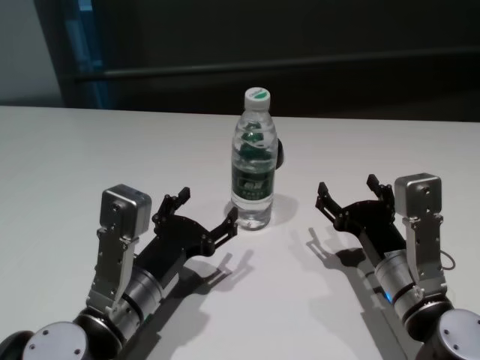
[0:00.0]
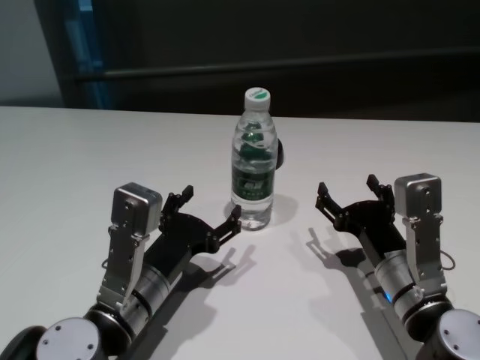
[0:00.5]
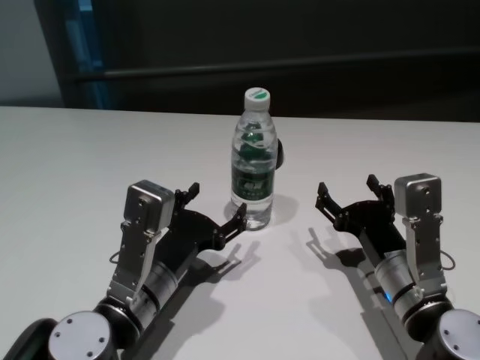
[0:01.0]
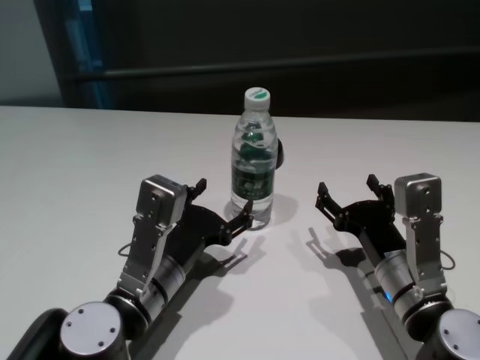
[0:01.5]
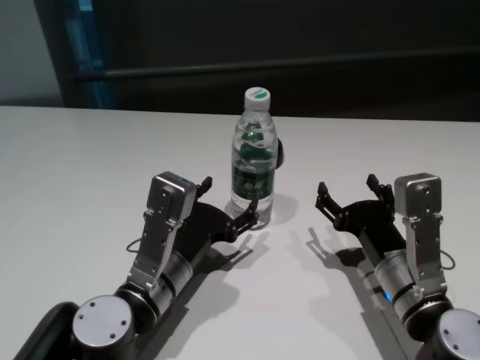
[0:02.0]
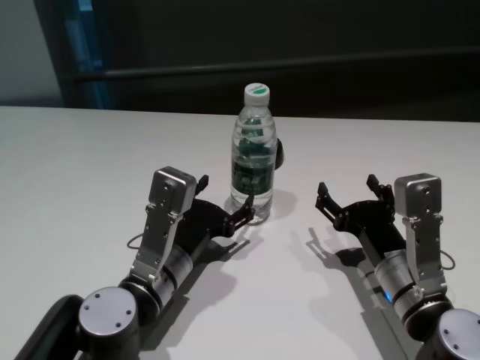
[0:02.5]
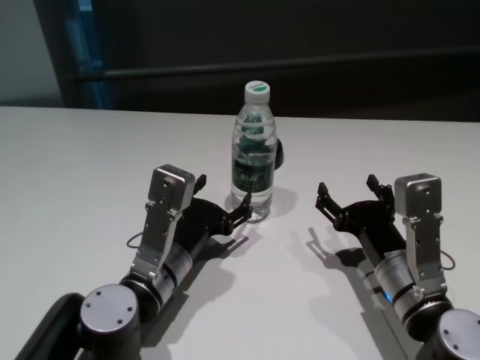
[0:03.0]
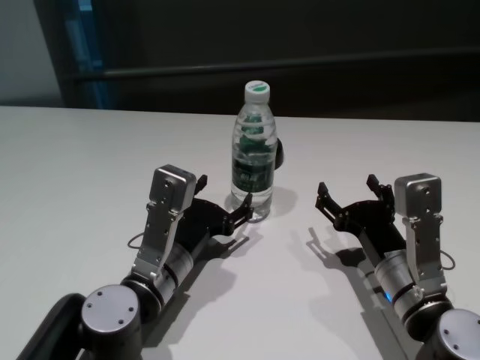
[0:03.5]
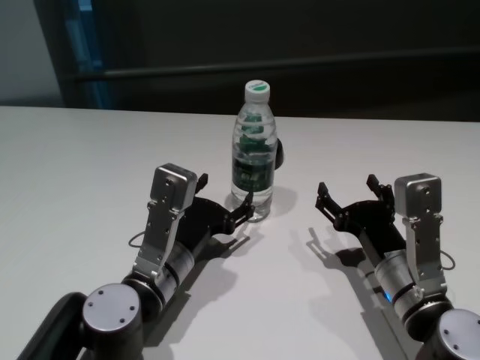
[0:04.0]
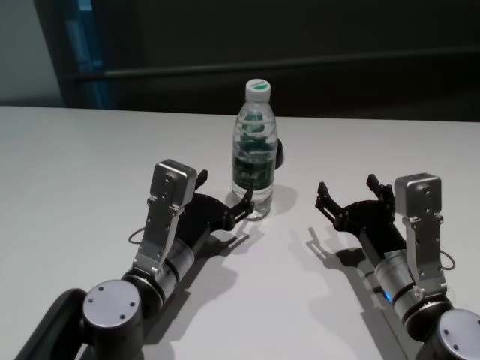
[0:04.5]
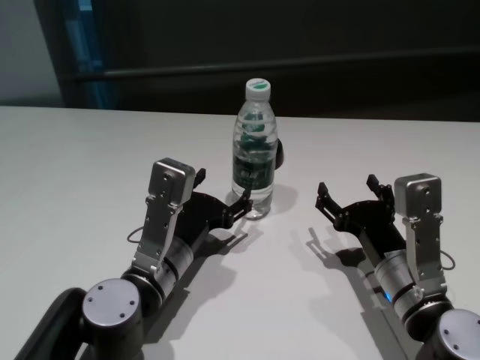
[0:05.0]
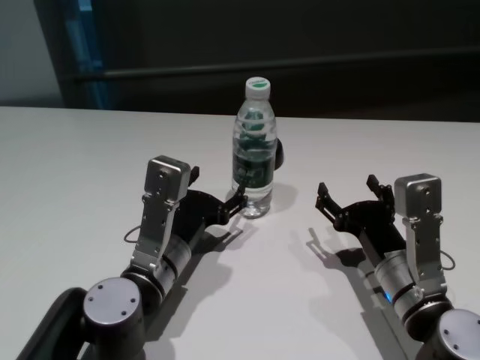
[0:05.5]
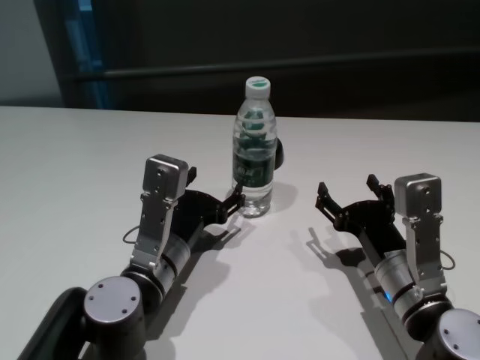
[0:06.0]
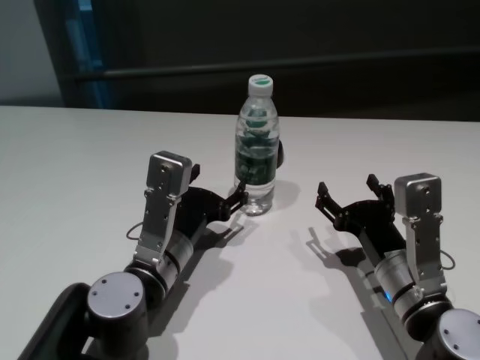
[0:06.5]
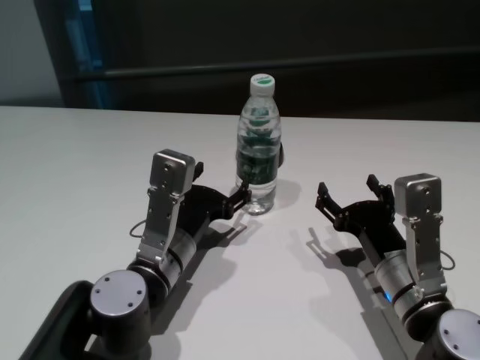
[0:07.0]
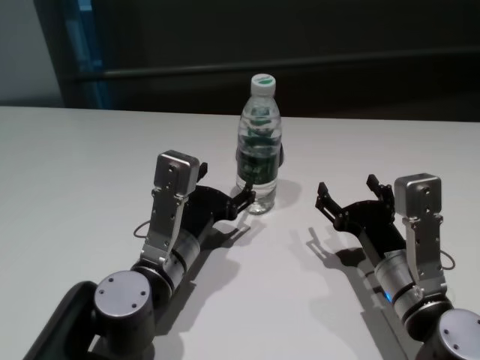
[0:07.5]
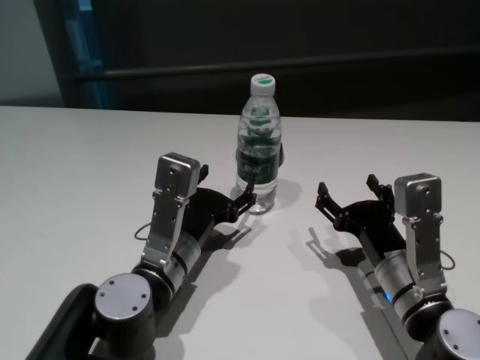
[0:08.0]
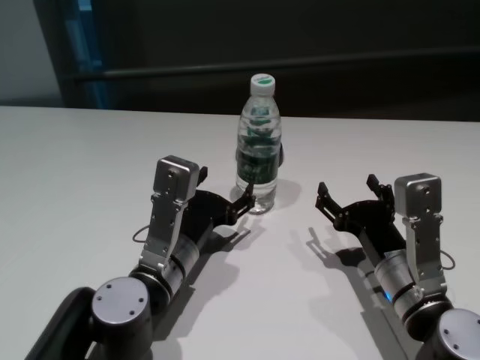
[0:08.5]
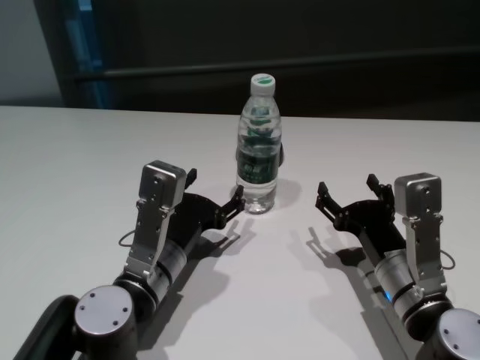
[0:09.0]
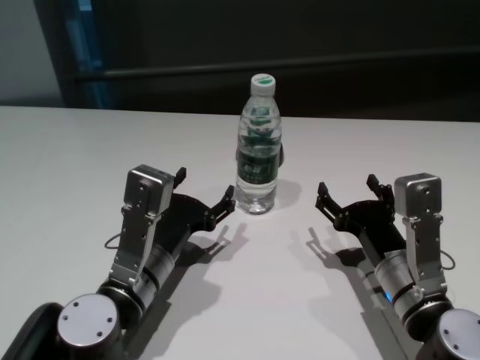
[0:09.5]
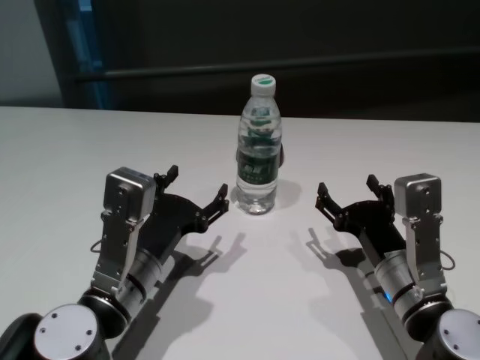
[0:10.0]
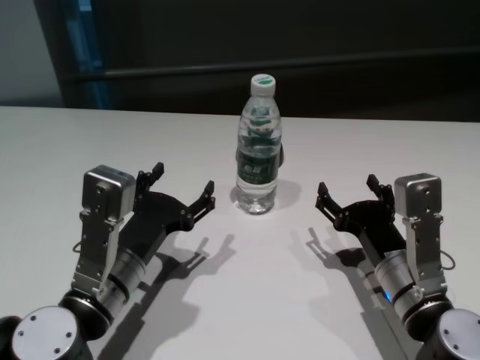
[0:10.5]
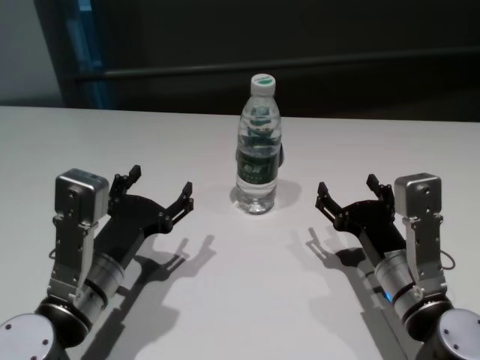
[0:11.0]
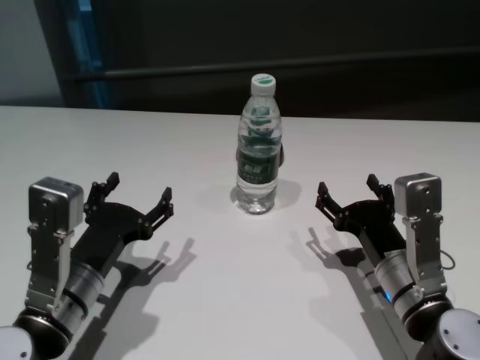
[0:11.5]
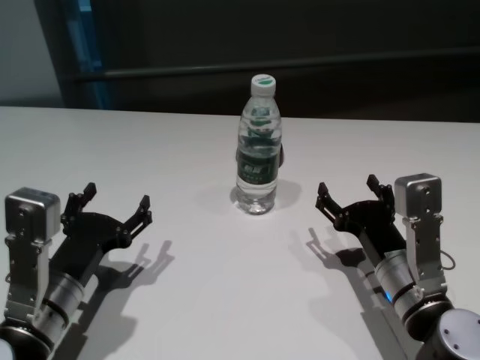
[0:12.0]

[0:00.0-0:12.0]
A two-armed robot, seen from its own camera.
Task of the whole recording: return to a safe position after touching an obstacle with your arm on the white table.
Step, 0:00.0 to 0:09.0: Touch the bottle with left gripper.

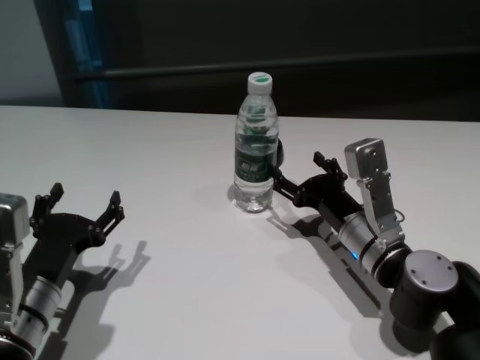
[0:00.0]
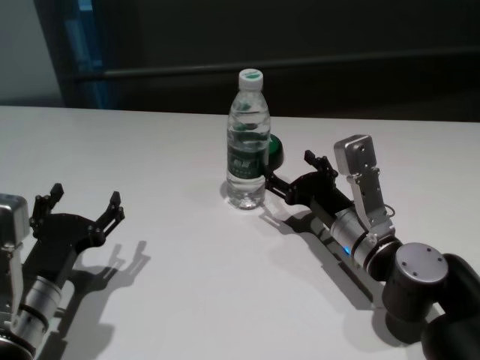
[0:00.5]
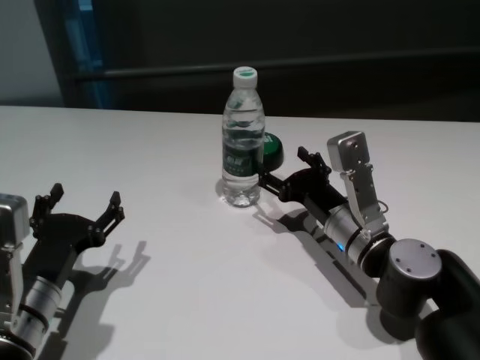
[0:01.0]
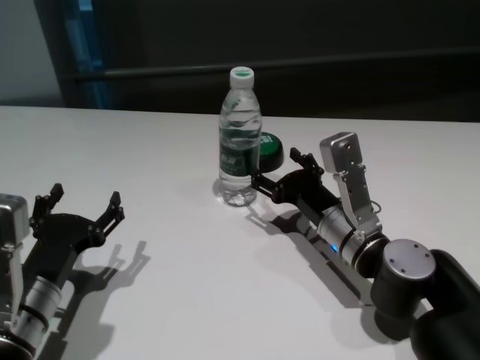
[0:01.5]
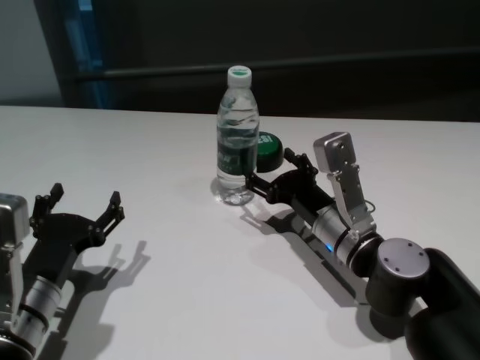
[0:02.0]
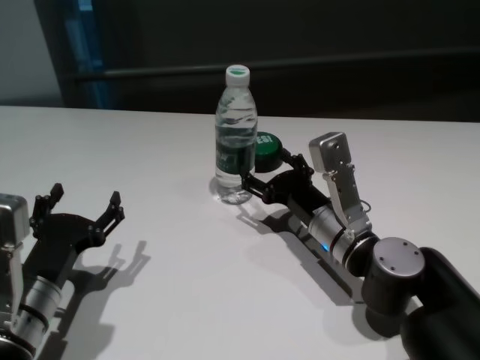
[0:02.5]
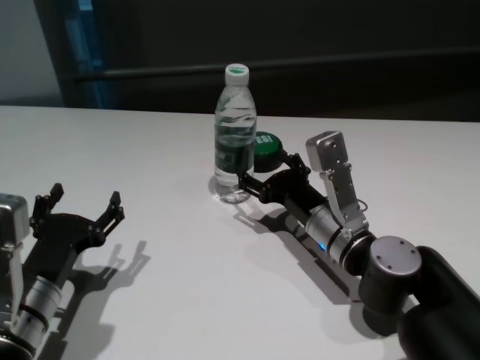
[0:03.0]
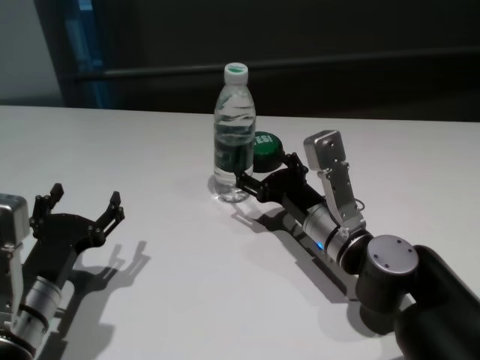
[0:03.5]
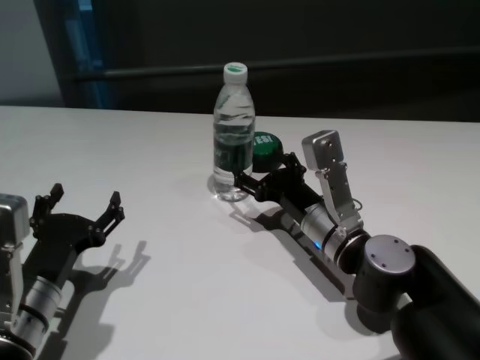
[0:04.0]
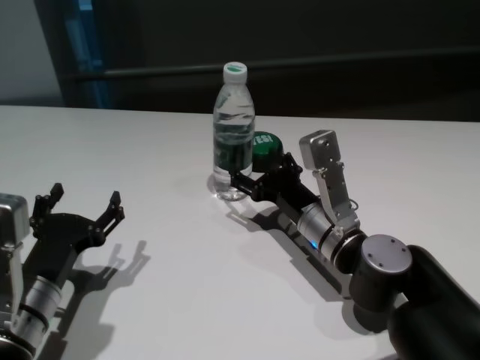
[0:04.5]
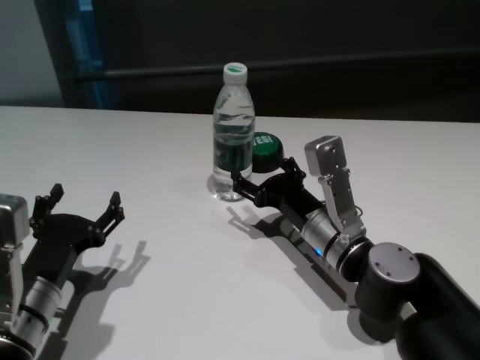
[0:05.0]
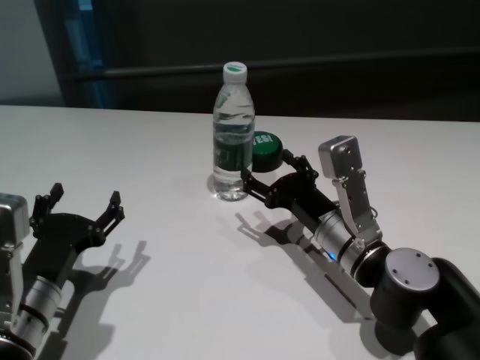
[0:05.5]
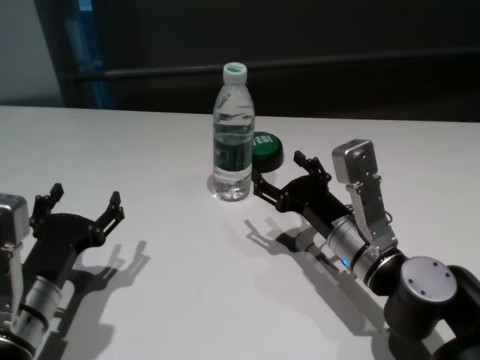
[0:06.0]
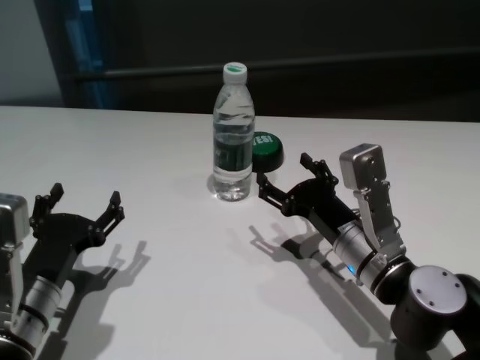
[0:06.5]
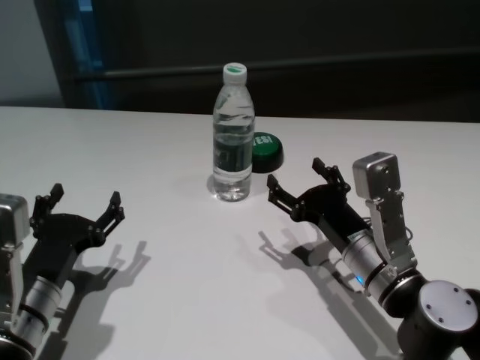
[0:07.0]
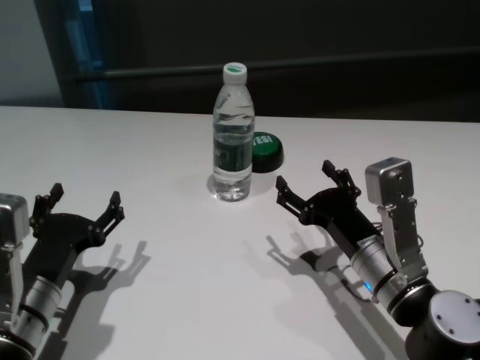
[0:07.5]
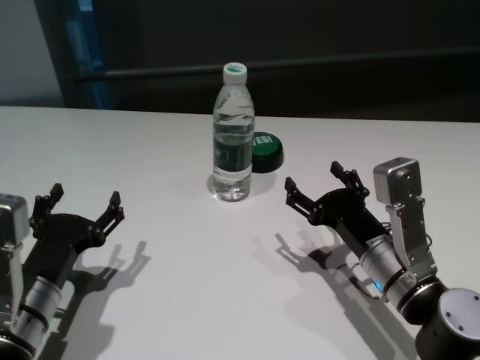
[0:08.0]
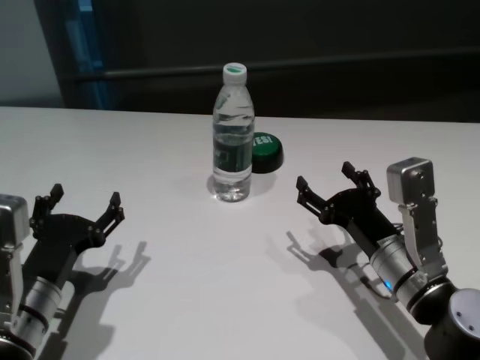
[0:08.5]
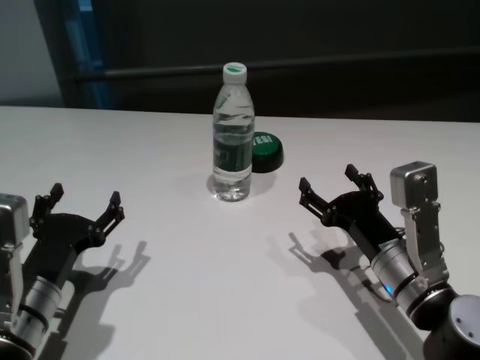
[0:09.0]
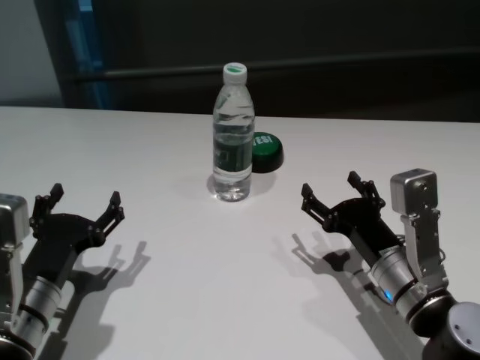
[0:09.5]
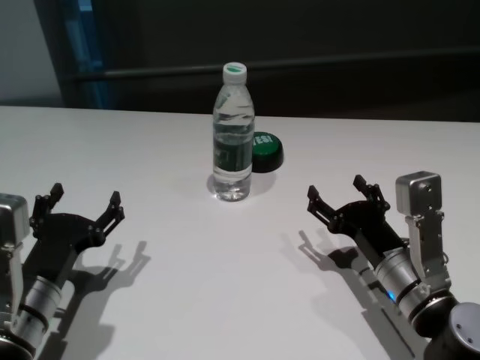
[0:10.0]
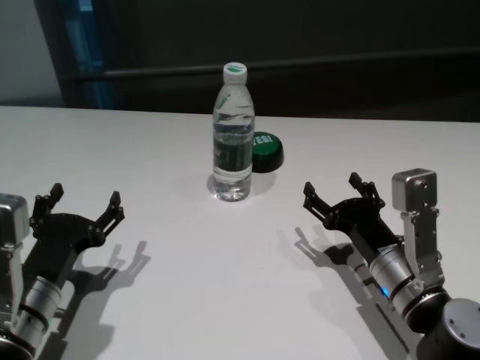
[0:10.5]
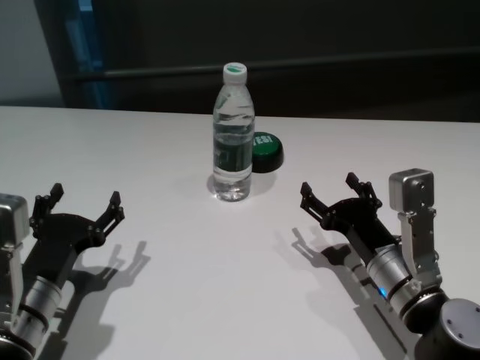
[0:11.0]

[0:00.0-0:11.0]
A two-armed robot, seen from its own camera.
Task of the whole recording: return to a safe position after touching an obstacle with your arm on the white table.
Step, 0:00.0 to 0:05.5: Touch the bottle with right gripper.

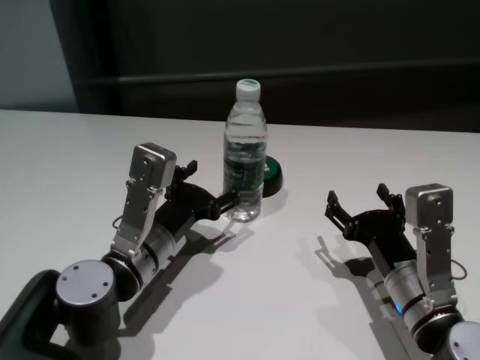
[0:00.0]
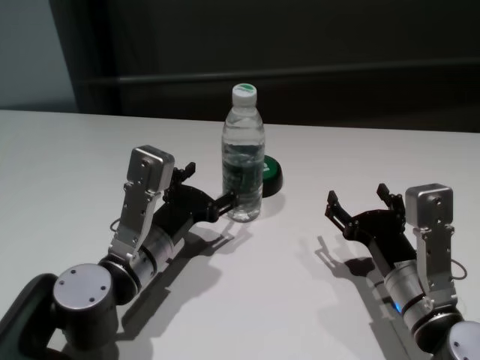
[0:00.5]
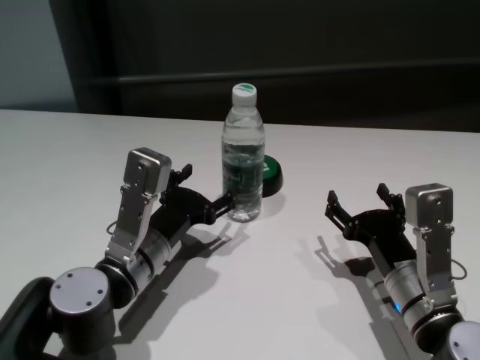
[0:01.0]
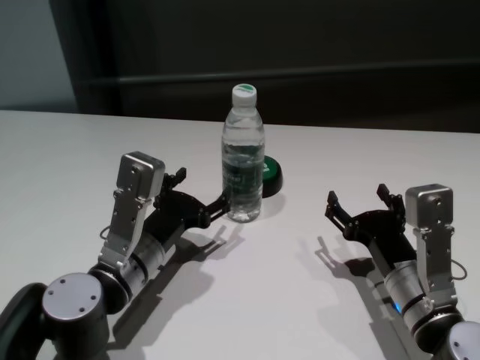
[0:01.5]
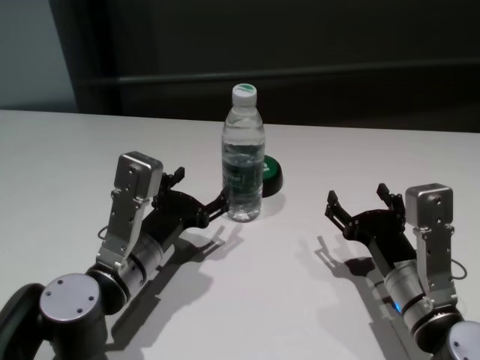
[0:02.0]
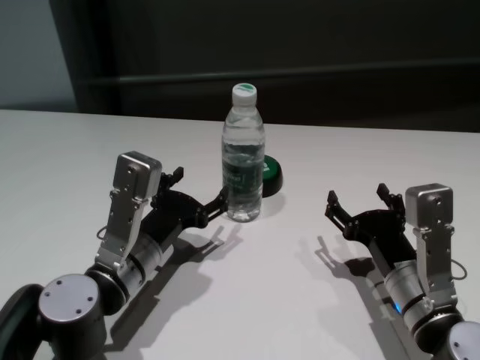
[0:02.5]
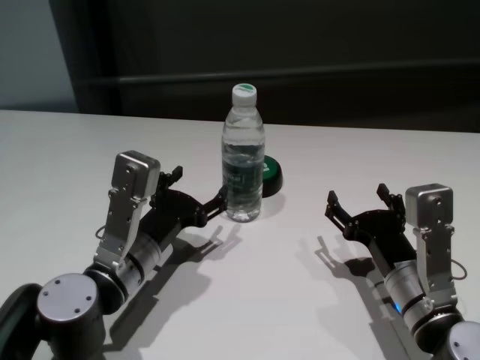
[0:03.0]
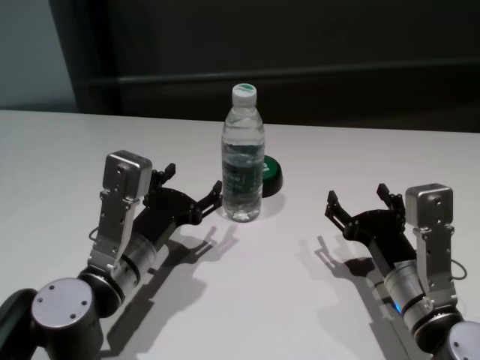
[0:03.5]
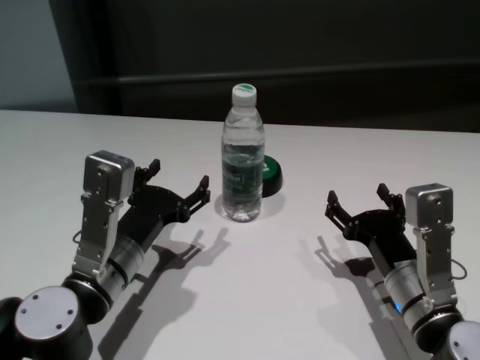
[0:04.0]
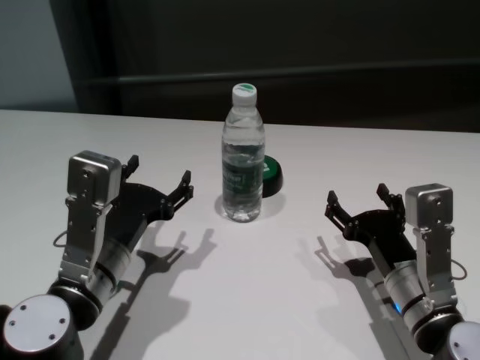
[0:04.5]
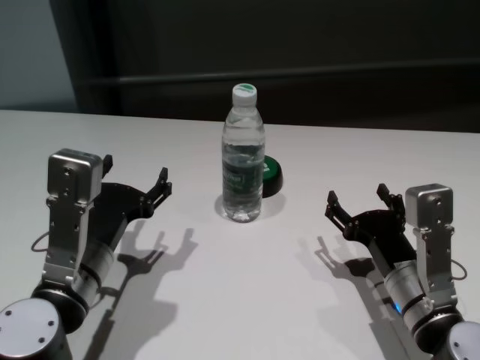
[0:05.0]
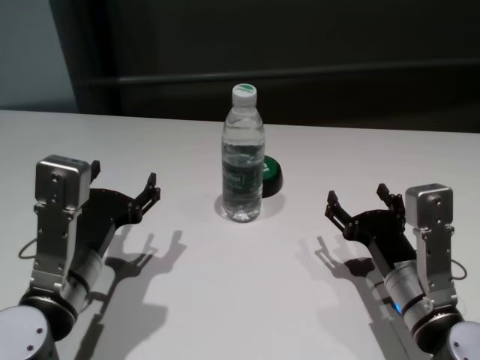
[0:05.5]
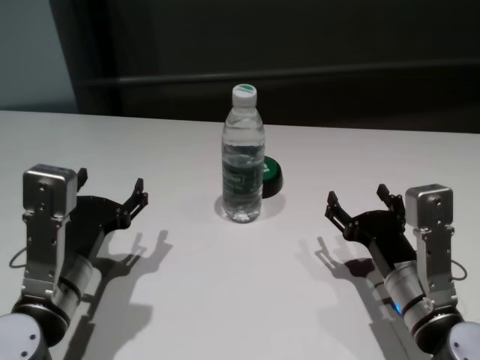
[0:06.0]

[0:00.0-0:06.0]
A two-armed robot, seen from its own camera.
Task of the whole recording: return to a safe position after touching an obstacle with your arm on the white table.
Step, 0:00.0 to 0:02.0: Touch the bottle with left gripper.
